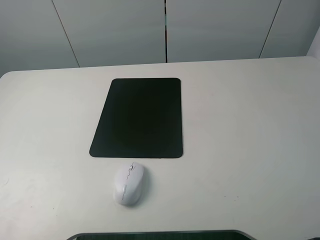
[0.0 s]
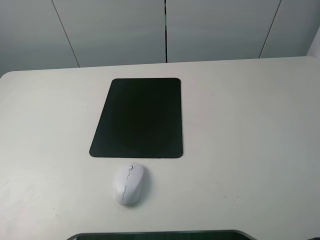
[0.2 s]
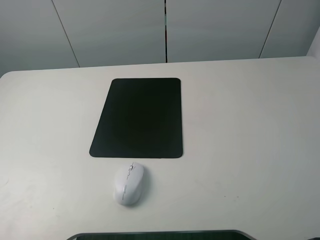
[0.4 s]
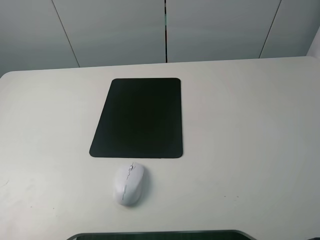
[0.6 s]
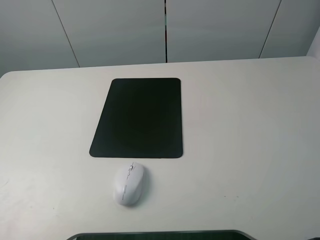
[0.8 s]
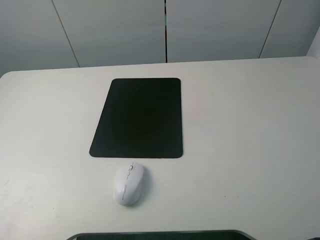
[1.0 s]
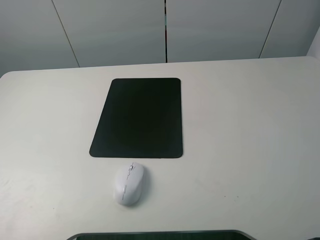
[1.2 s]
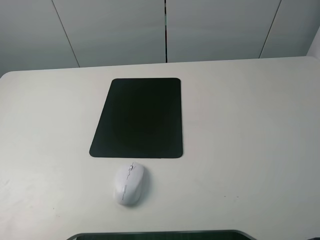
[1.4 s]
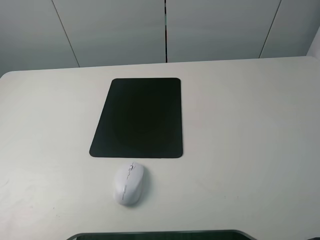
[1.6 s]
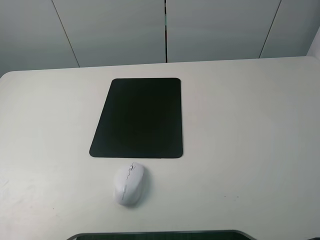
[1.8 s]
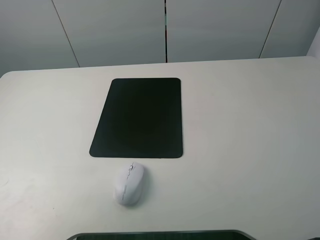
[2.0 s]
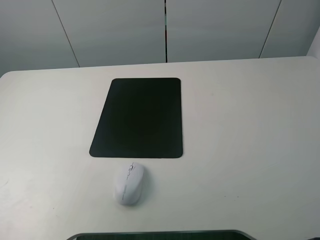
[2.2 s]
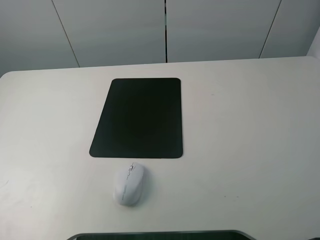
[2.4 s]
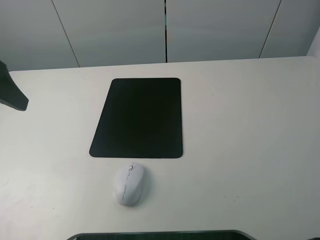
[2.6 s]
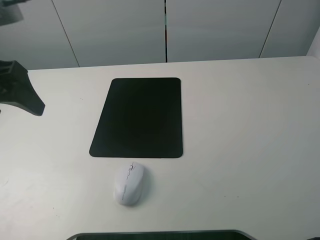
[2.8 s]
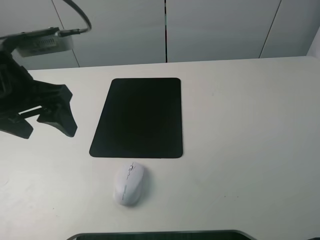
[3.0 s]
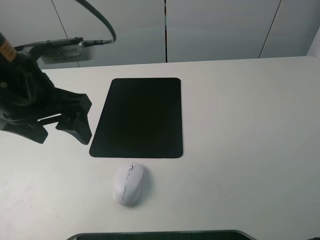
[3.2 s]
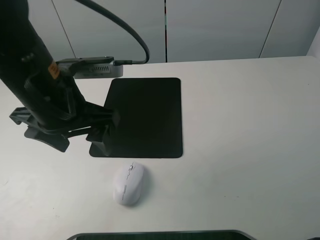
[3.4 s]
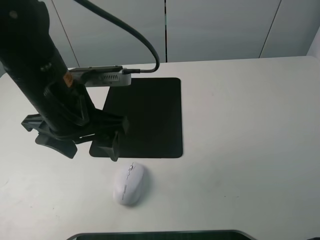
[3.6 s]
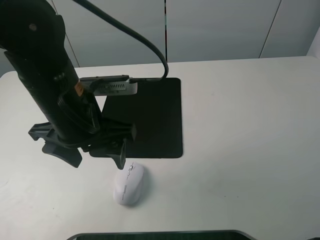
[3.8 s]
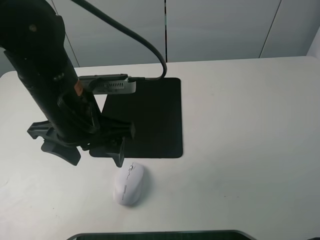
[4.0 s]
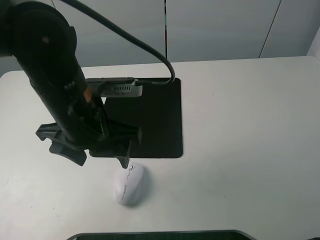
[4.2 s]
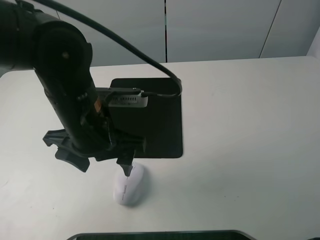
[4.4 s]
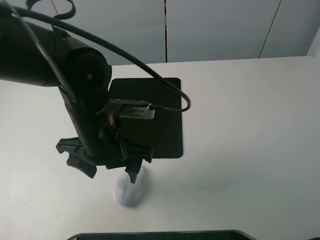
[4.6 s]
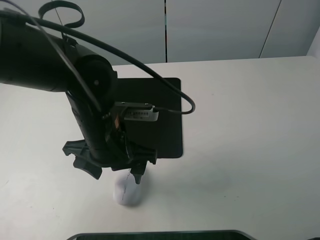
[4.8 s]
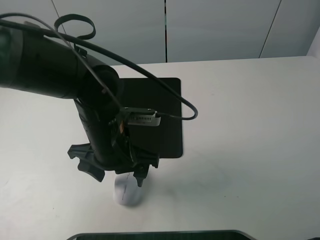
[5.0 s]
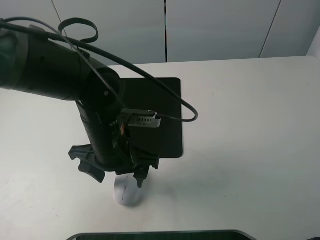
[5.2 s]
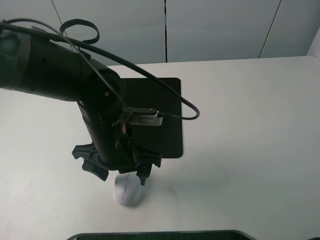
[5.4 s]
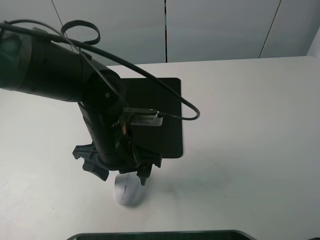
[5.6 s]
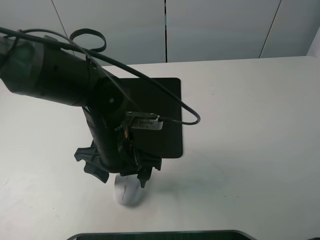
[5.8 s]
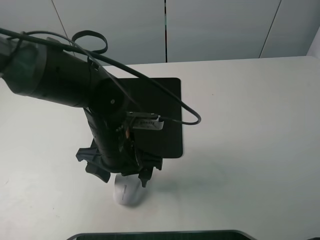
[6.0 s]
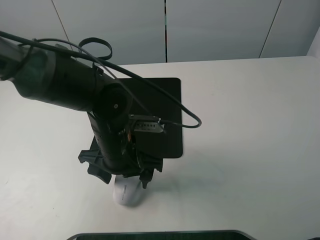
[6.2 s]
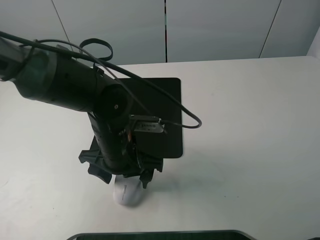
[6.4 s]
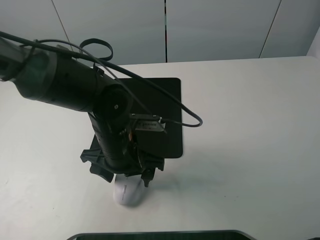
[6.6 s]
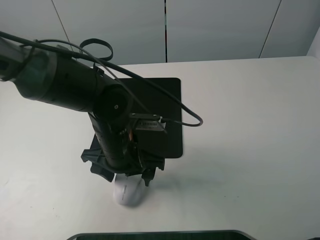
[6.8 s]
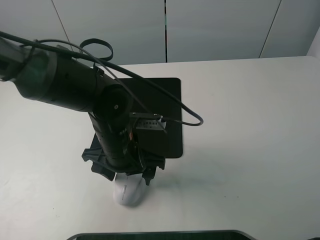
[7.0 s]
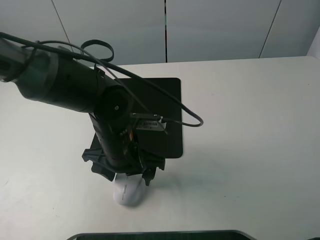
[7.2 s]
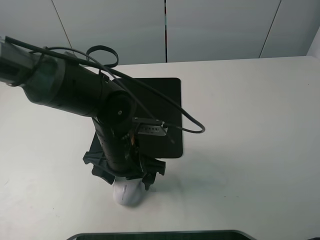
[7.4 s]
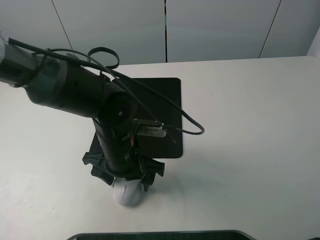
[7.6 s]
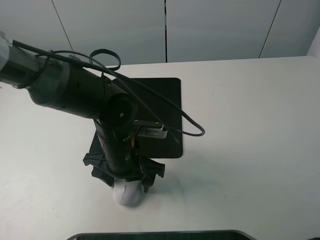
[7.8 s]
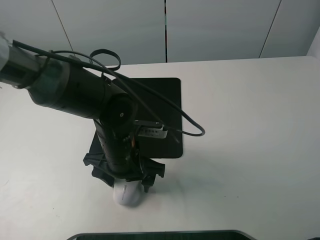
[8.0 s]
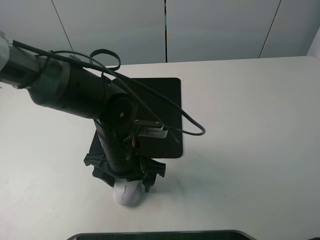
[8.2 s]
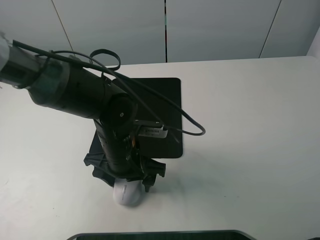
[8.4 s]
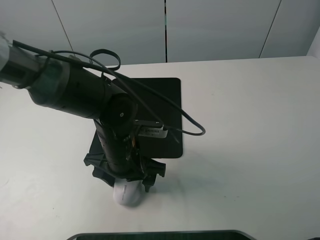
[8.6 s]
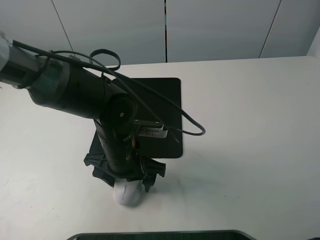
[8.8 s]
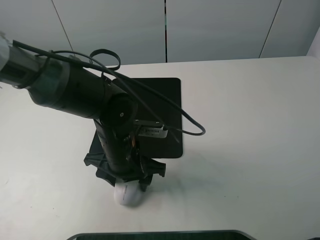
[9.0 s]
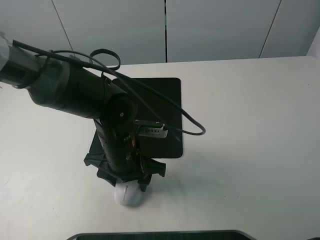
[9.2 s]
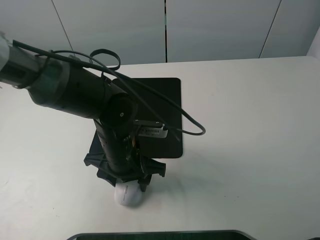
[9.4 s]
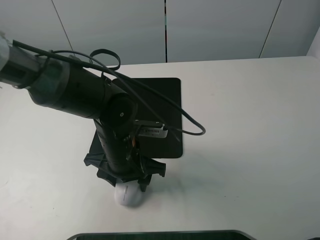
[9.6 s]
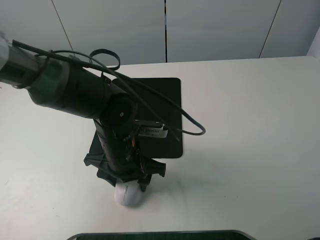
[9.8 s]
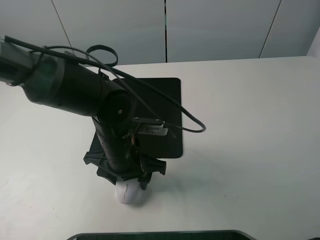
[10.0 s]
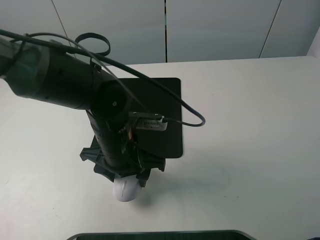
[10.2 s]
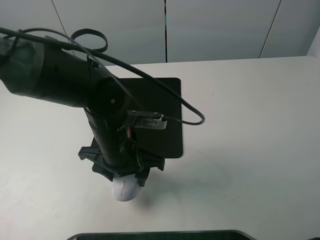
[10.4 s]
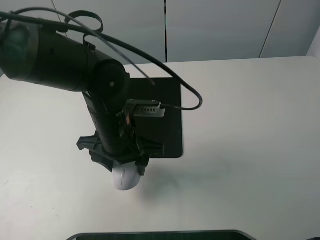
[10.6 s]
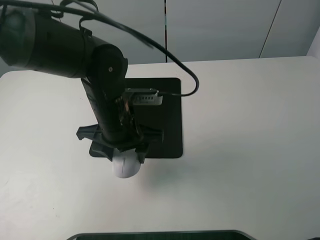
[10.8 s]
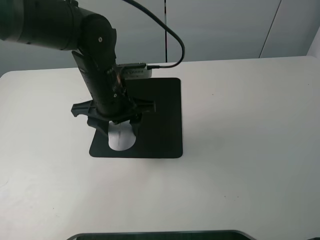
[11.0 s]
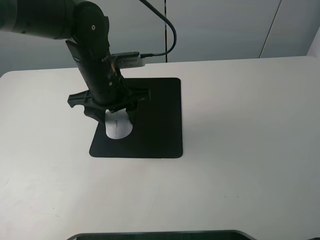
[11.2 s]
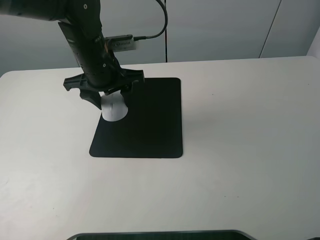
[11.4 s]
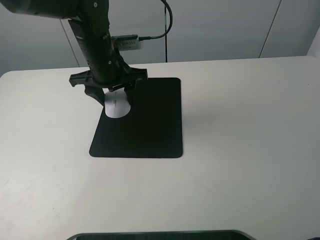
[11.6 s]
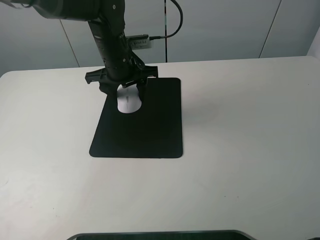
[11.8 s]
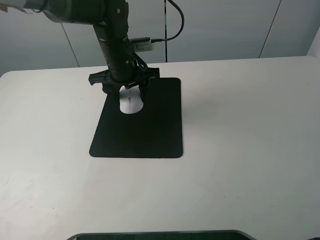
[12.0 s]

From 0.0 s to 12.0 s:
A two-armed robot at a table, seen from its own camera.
Step, from 0.0 s to 9.6 s: Grasp the mouse with the left gripper.
From 1.6 s to 3.0 s: The left gripper moves forward and to the right, some 20 cm.
From 3.0 s to 4.4 s: The left gripper is displaced to the right and downward by about 15 cm.
From 4.4 s to 6.0 s: The left gripper moves downward, roughly 5 cm.
From 6.0 s to 7.6 s: There are only small adjustments of the grippers.
From 7.6 s to 9.0 s: The left gripper closes.
From 9.0 s to 10.4 s: The grippers move only a little.
From 10.4 s to 12.0 s: The left gripper shifts approximately 20 cm forward.

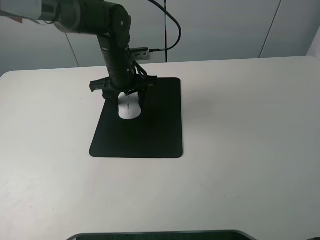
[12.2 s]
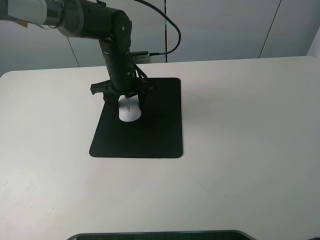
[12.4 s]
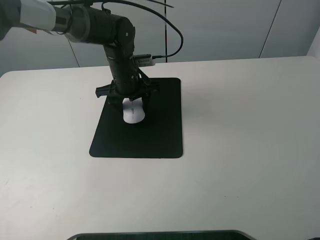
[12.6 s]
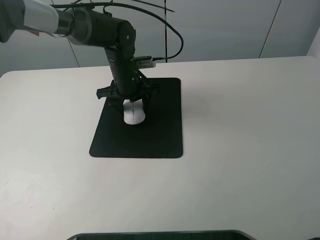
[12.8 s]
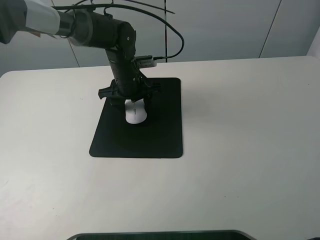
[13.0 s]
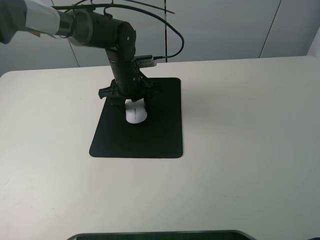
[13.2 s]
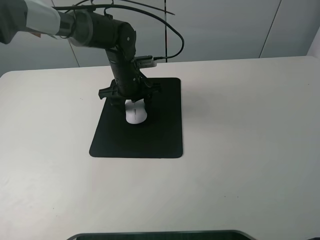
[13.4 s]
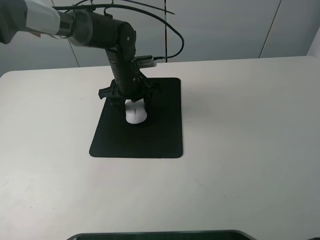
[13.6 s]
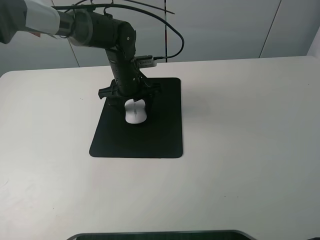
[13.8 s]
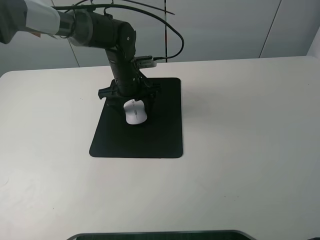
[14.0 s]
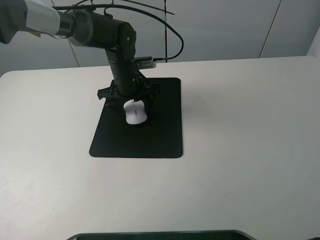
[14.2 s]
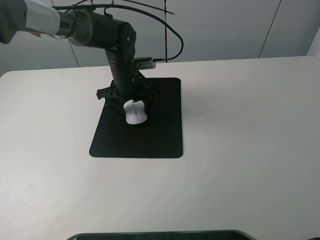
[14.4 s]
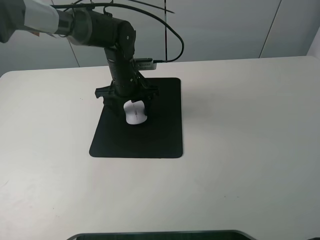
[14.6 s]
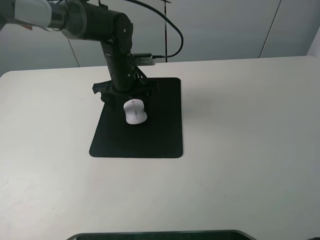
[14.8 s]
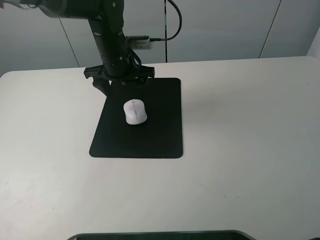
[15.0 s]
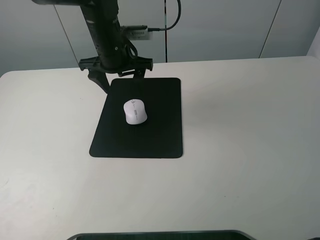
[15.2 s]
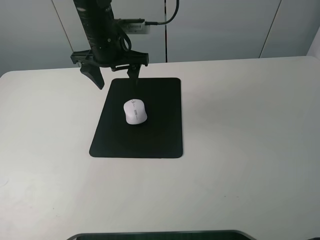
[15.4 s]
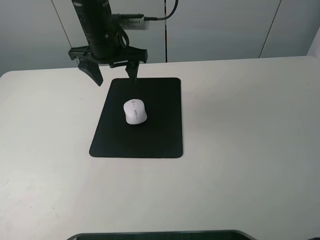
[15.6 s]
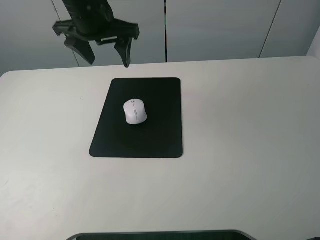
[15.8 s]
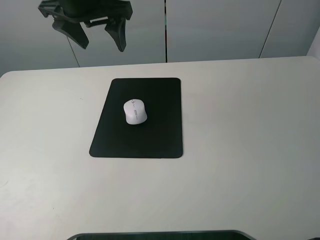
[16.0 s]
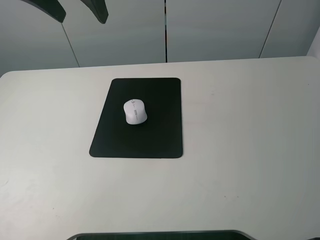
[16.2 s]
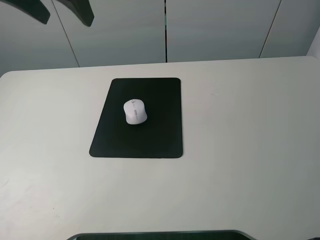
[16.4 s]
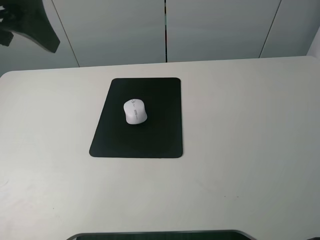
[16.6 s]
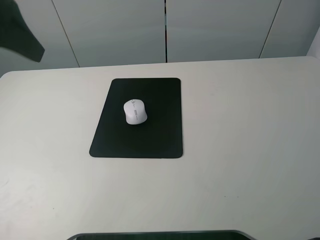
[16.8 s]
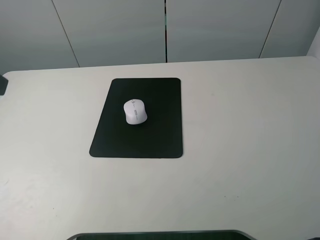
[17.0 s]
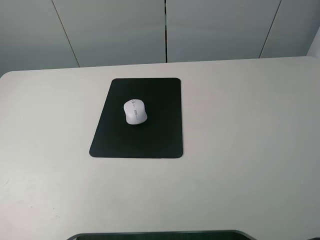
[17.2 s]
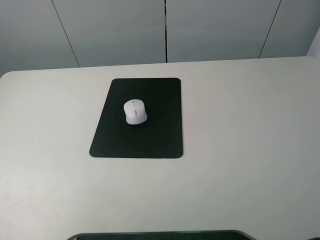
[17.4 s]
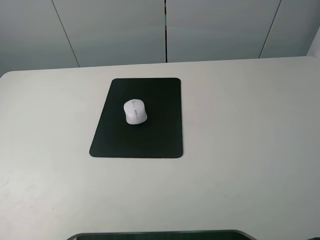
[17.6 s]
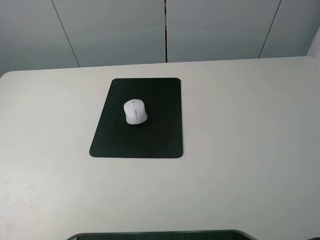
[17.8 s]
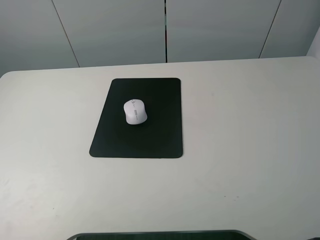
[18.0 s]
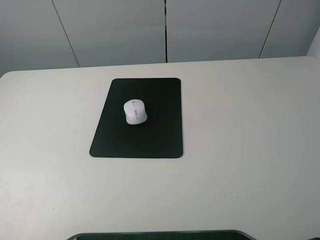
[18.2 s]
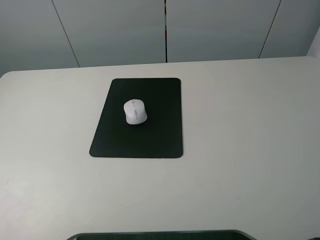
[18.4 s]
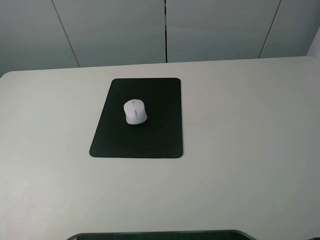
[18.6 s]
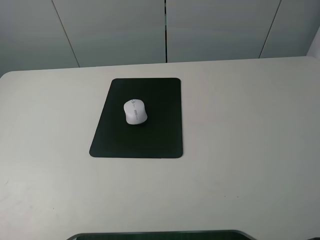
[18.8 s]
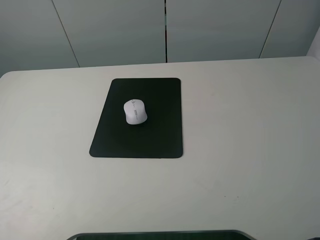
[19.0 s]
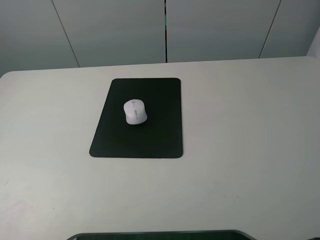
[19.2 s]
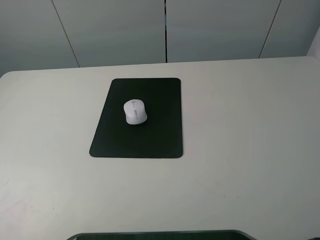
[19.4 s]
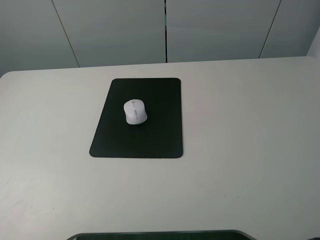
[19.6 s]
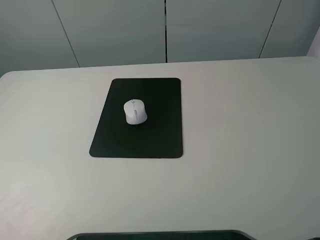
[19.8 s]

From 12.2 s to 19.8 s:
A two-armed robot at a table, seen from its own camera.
From 12.2 s to 13.8 s: The left gripper opens its fingers.
From 13.8 s to 15.2 s: The left gripper moves upward, some 10 cm.
From 15.2 s to 16.8 s: The left gripper shifts about 30 cm backward, upward and to the left.
From 16.8 s to 18.2 s: The left gripper travels backward, to the left and downward by approximately 20 cm.

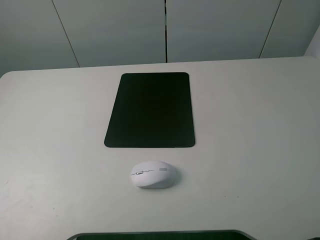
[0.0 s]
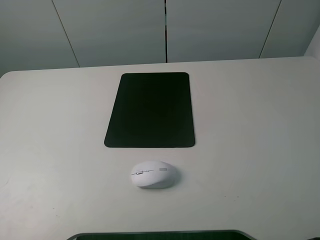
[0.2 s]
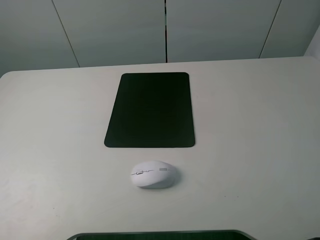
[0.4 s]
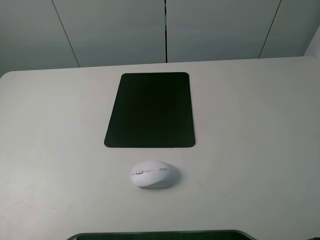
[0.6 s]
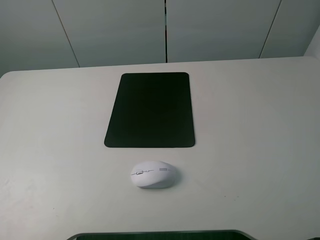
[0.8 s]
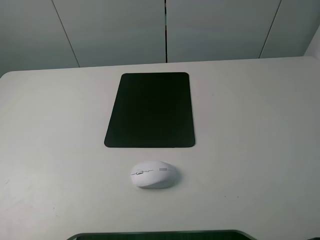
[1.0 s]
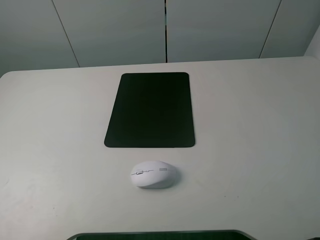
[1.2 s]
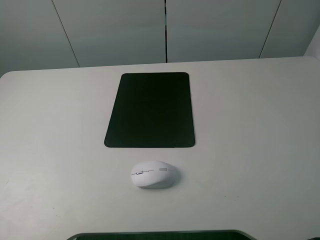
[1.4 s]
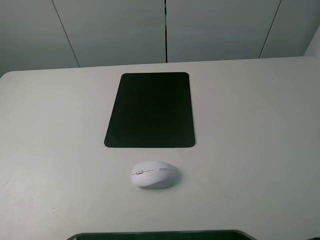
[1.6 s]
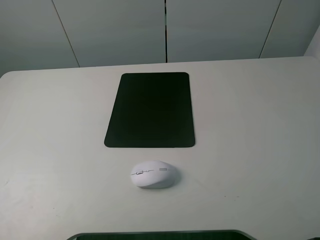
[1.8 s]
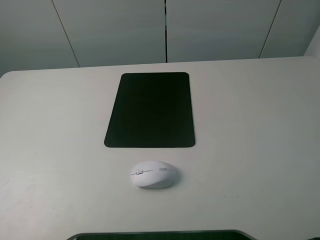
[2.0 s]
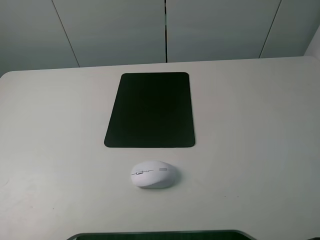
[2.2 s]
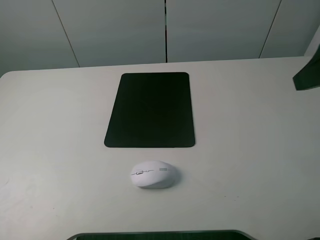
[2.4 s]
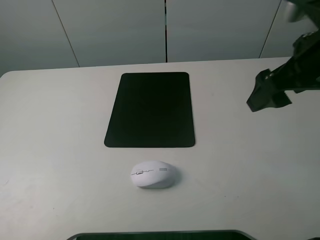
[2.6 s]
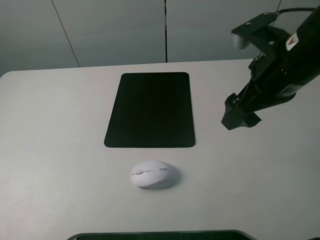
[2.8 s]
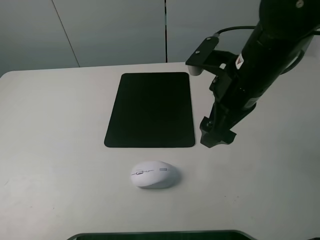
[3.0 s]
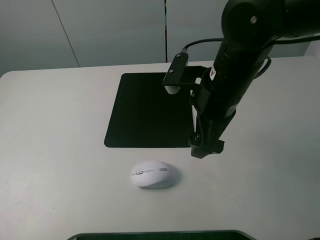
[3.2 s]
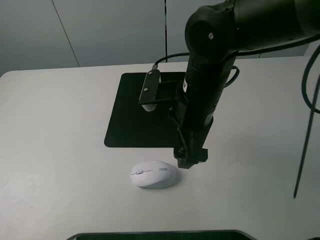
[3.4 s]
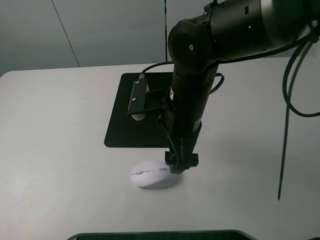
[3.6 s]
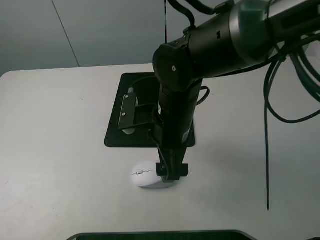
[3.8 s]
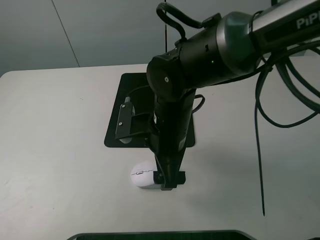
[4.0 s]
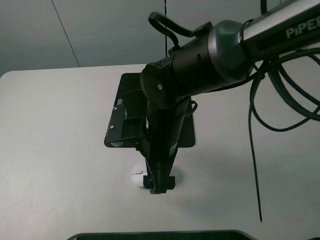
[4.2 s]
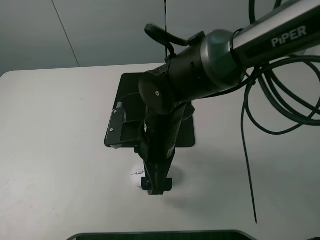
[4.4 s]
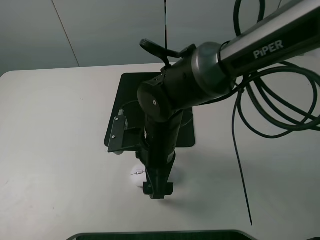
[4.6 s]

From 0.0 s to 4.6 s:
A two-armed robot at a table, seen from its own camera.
From 1.6 s to 3.0 s: The right gripper moves forward, to the left and downward, some 30 cm.
From 3.0 s to 4.6 s: The right gripper moves to the left and downward, some 15 cm.
